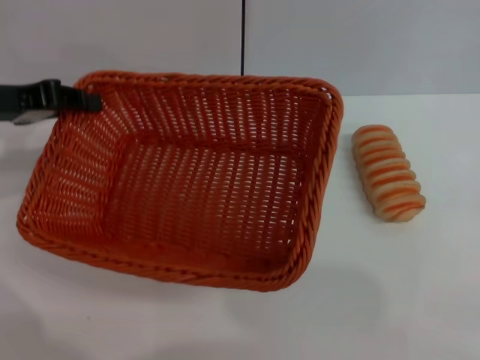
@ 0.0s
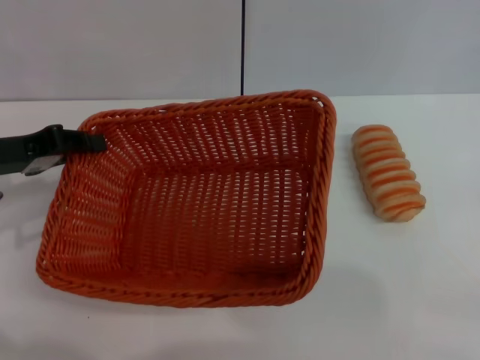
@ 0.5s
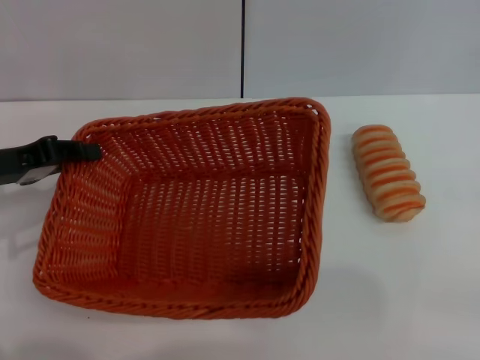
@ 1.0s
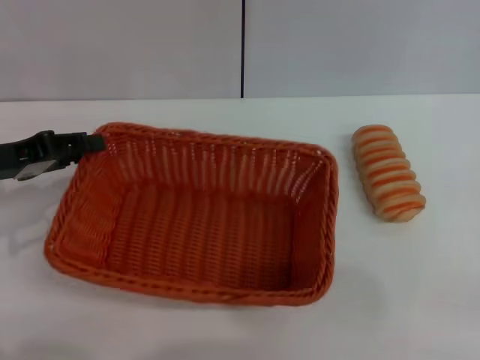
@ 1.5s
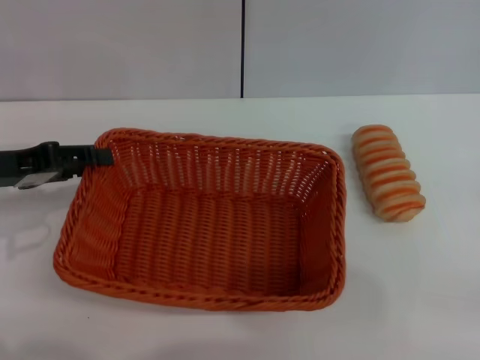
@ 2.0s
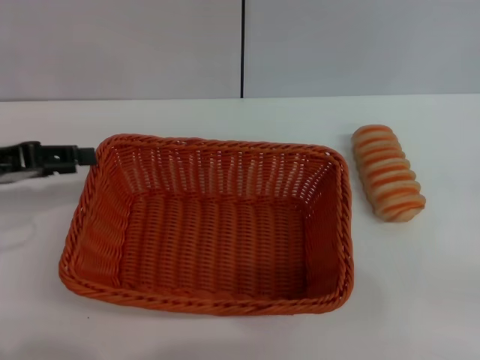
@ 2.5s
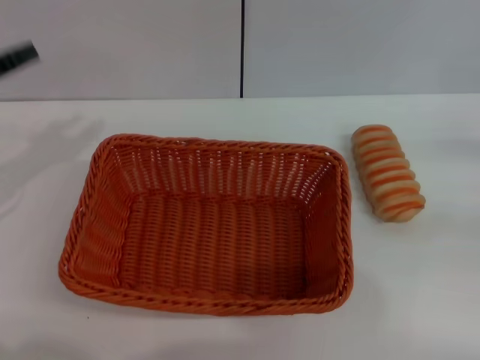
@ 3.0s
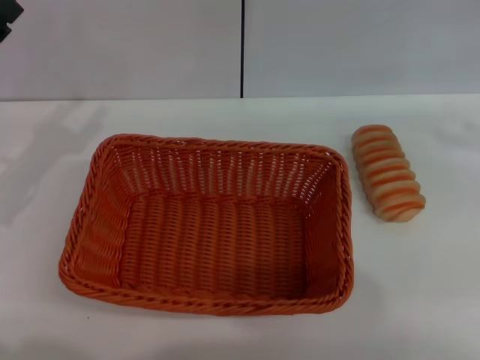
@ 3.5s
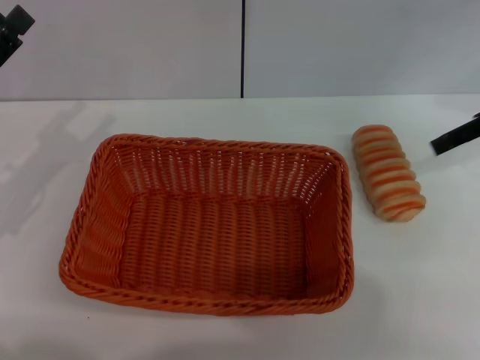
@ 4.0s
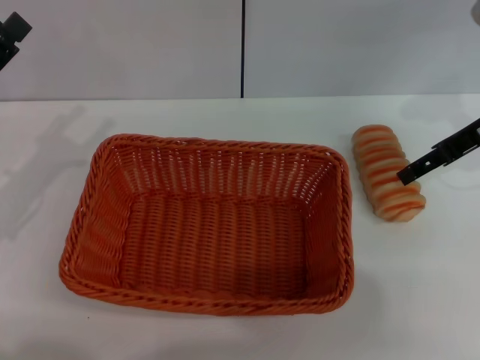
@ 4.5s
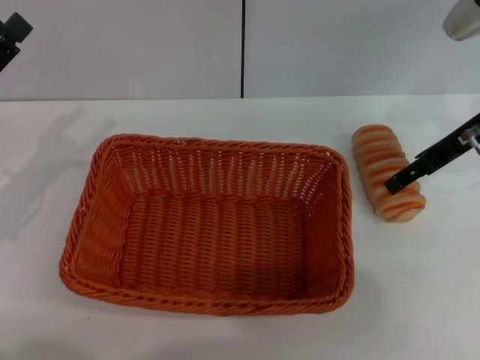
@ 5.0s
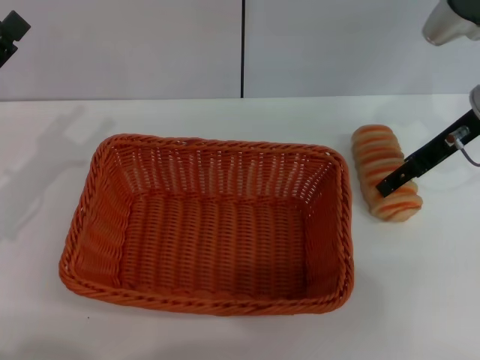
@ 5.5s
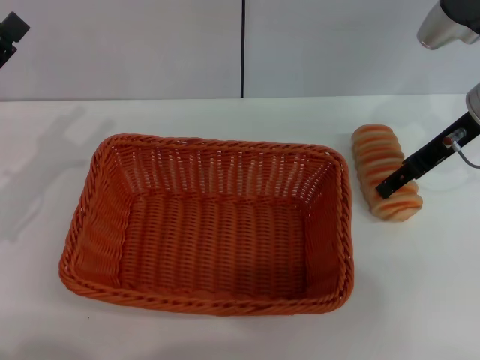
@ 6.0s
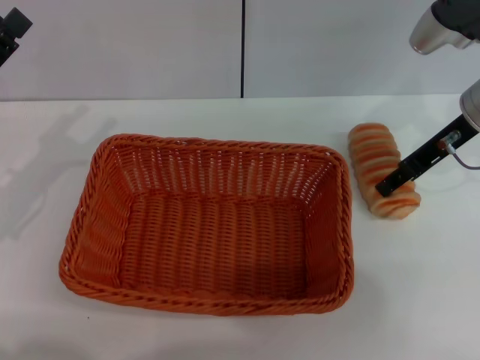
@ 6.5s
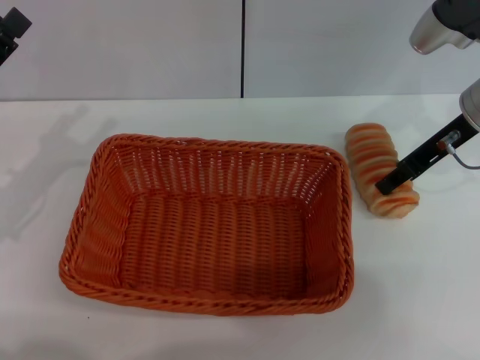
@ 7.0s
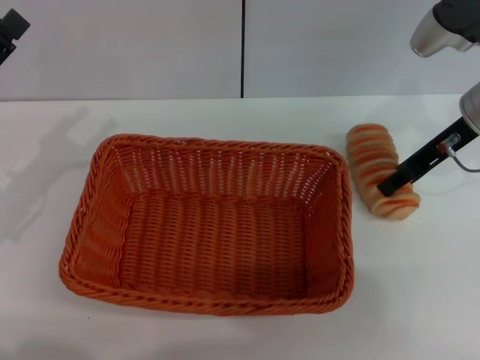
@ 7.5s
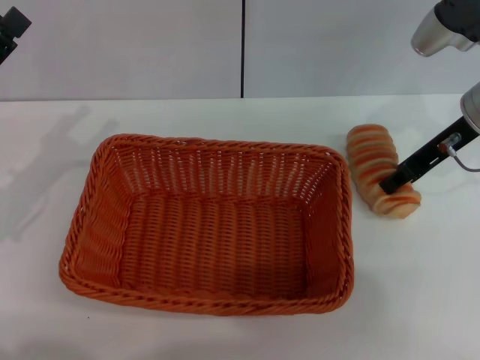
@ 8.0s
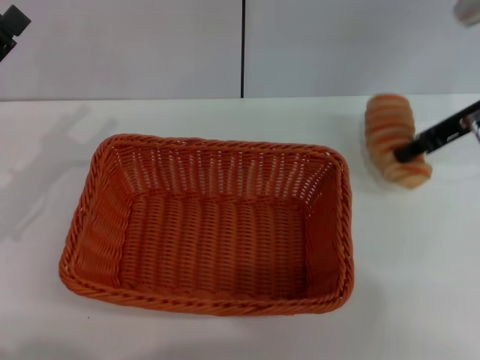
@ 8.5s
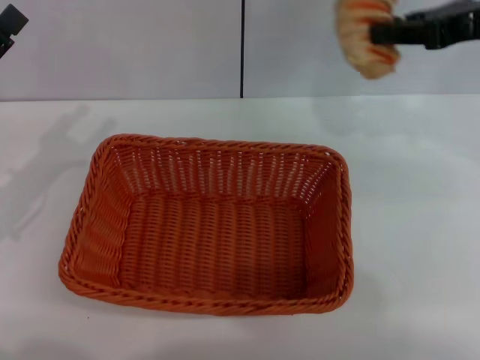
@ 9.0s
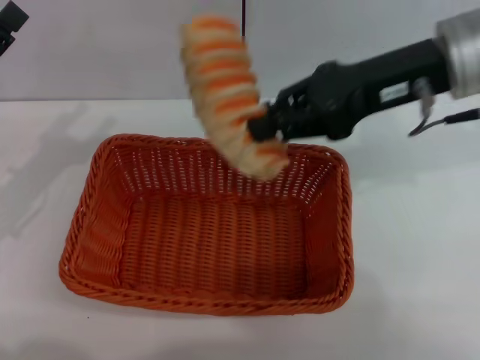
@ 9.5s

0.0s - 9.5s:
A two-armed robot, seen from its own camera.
Step, 0.5s - 2.5s: Place the light basket in the center of view with the left gripper.
Step, 3.0s - 8.5s: Pick up the long bread with the right gripper.
0.0s - 2.0s: The left gripper changes place by about 5 cm, and opens its fingers.
2.0s - 4.0s: The right gripper shifts some 25 cm forward, upward and to the left.
4.0s - 5.5s: The right gripper moves to the left, approximately 5 cm.
5.5s - 7.5s: The right gripper closes its fingers.
7.5s - 9.5s: The right gripper is displaced upward and to the left by approximately 10 cm.

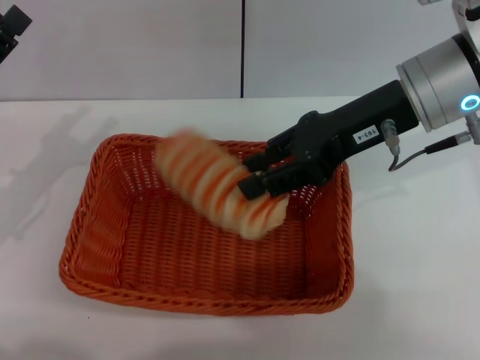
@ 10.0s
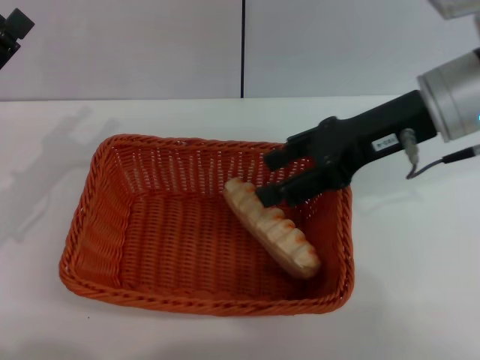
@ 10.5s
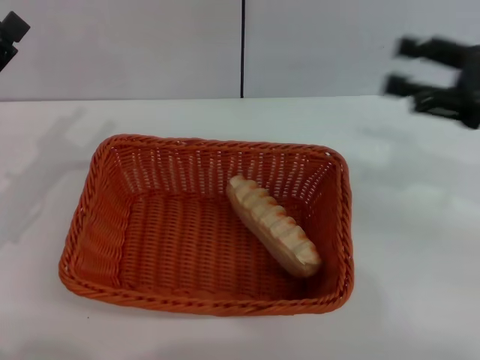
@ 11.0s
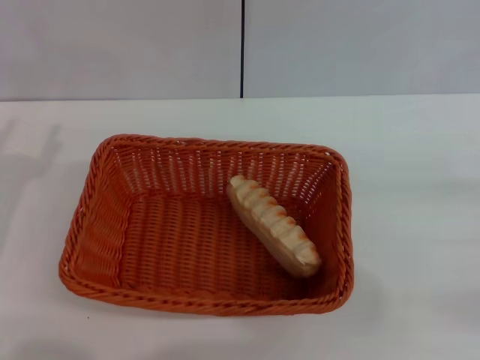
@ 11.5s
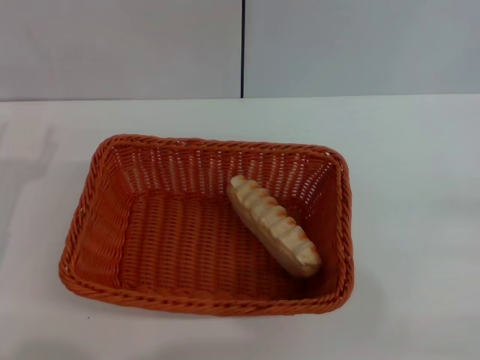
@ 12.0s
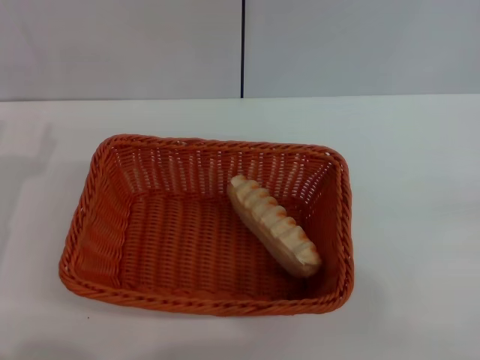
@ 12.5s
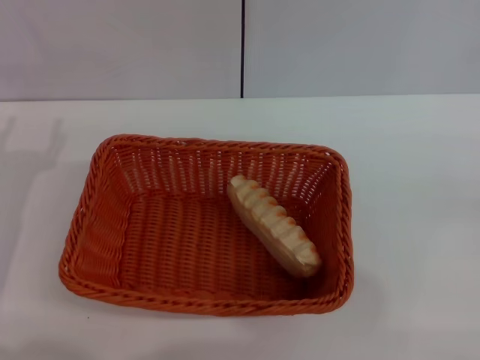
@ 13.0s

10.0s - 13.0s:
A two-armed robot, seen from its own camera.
10.0s - 11.5s: The right gripper goes some 30 cm to the right, backward and downward, and opens.
